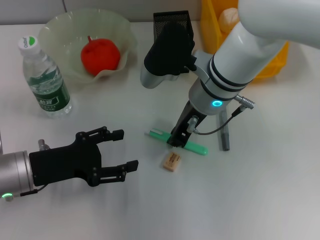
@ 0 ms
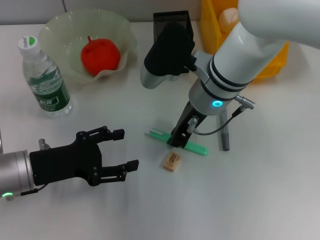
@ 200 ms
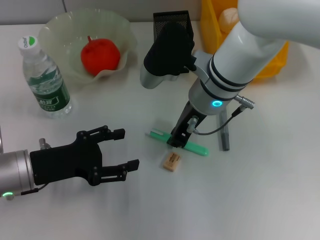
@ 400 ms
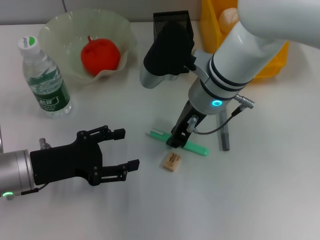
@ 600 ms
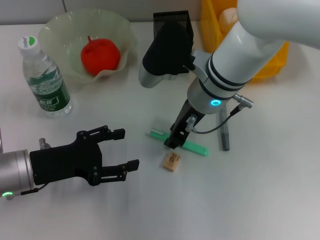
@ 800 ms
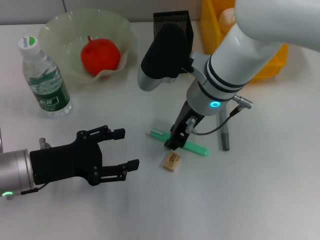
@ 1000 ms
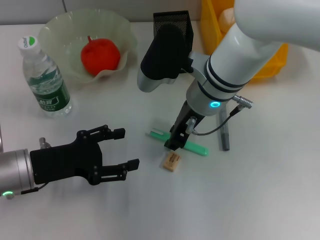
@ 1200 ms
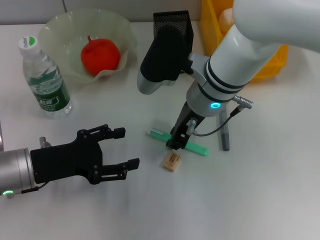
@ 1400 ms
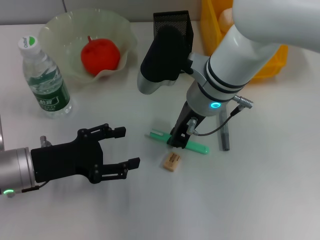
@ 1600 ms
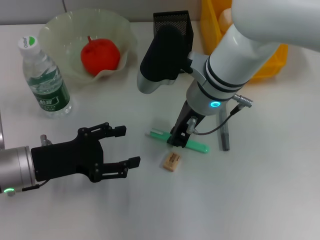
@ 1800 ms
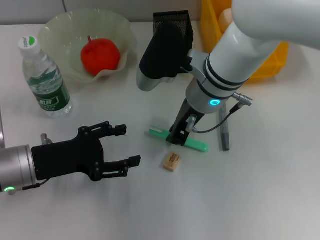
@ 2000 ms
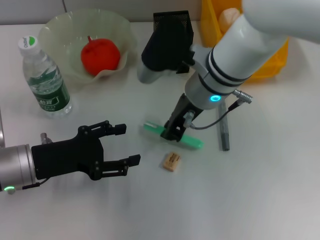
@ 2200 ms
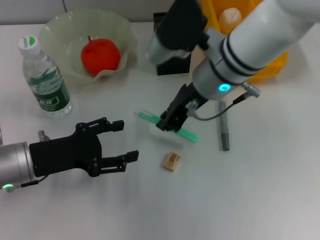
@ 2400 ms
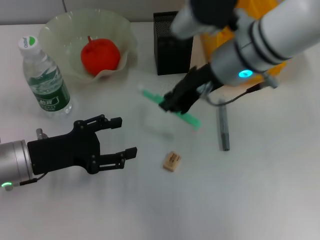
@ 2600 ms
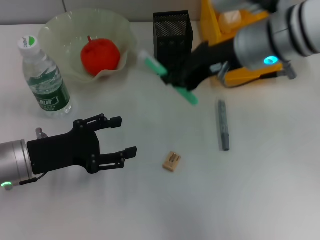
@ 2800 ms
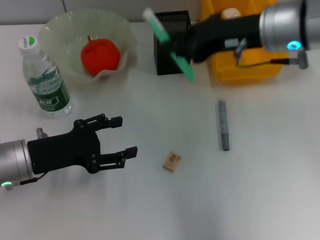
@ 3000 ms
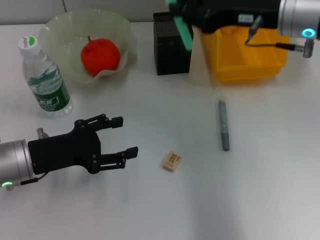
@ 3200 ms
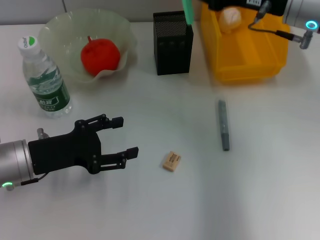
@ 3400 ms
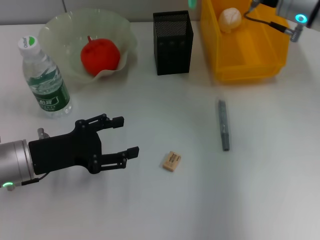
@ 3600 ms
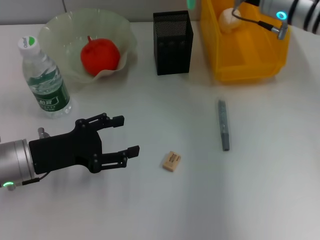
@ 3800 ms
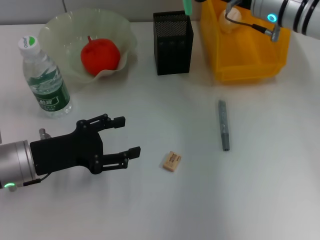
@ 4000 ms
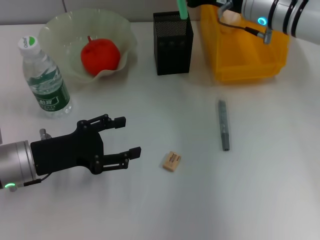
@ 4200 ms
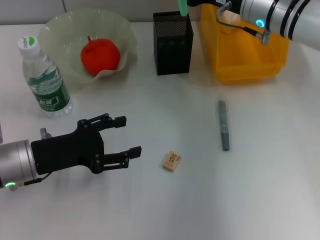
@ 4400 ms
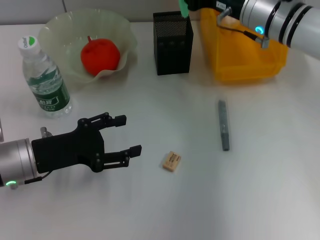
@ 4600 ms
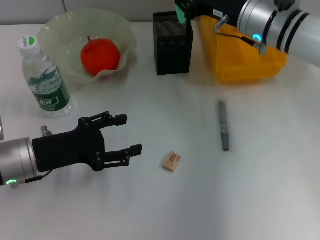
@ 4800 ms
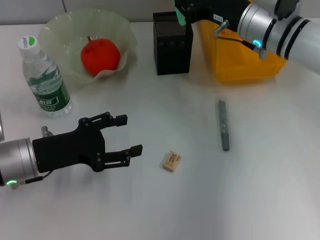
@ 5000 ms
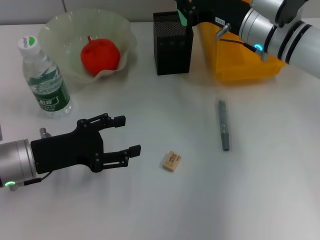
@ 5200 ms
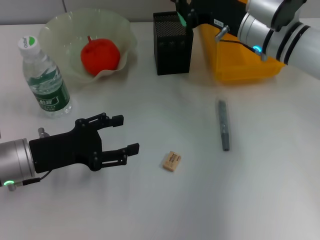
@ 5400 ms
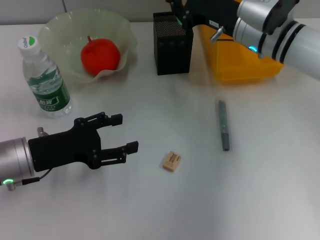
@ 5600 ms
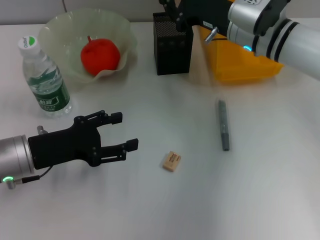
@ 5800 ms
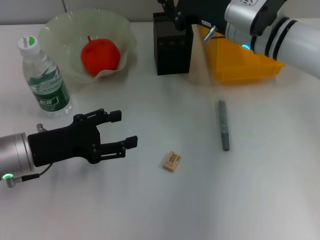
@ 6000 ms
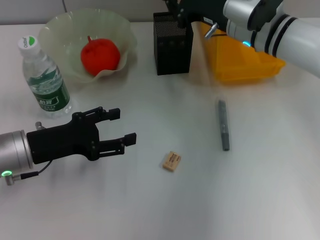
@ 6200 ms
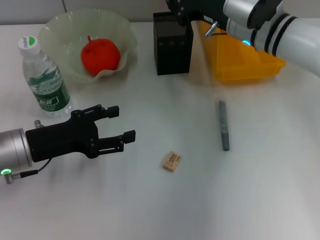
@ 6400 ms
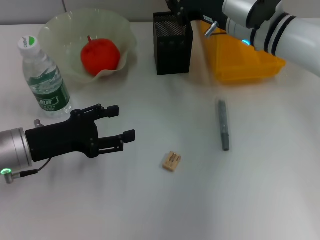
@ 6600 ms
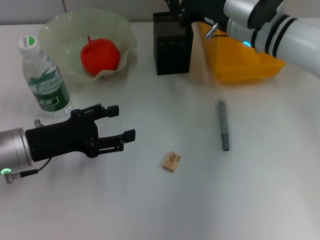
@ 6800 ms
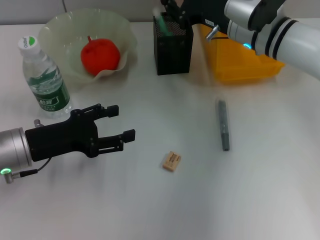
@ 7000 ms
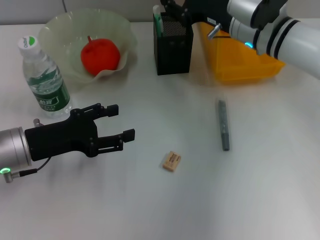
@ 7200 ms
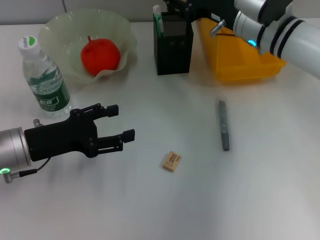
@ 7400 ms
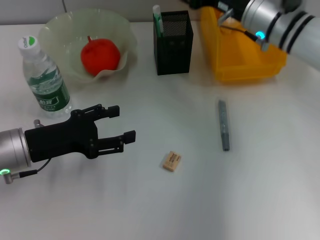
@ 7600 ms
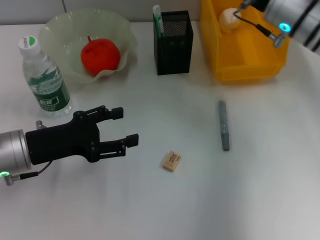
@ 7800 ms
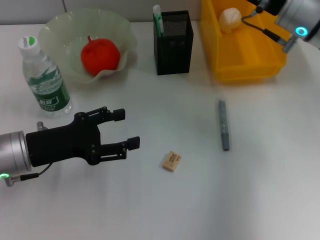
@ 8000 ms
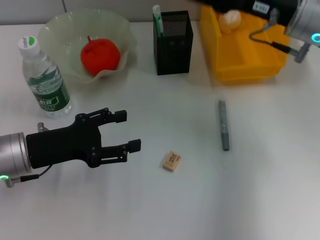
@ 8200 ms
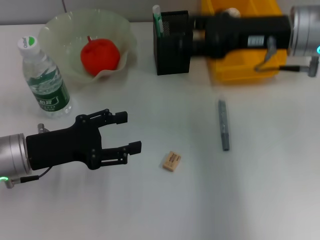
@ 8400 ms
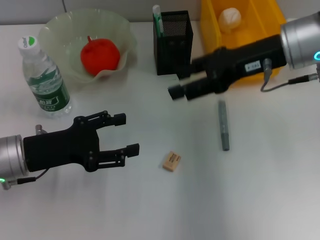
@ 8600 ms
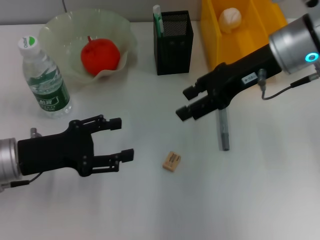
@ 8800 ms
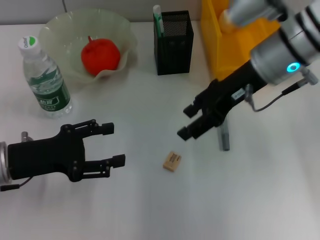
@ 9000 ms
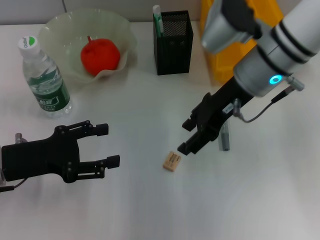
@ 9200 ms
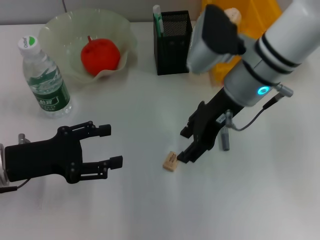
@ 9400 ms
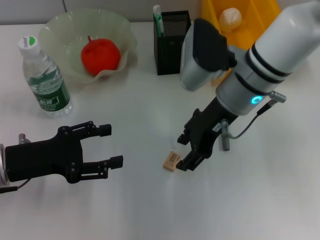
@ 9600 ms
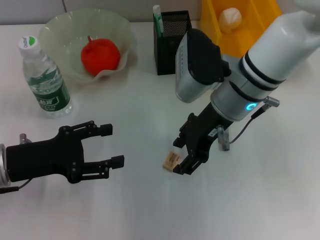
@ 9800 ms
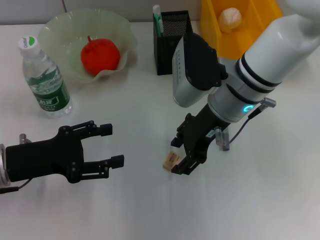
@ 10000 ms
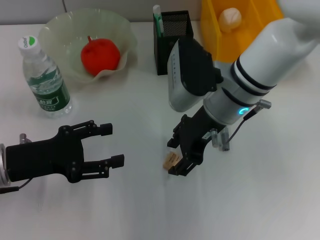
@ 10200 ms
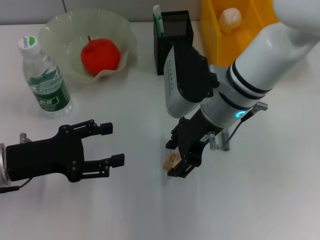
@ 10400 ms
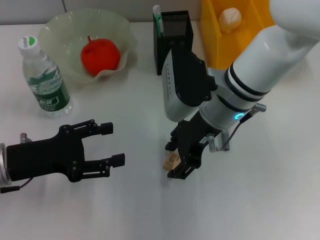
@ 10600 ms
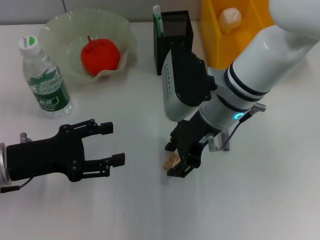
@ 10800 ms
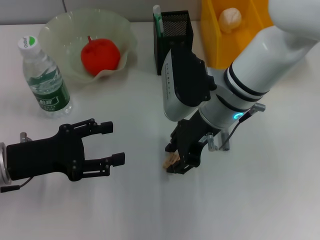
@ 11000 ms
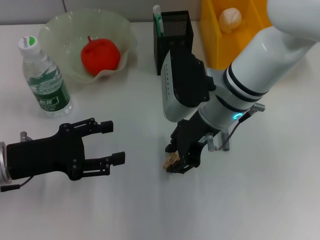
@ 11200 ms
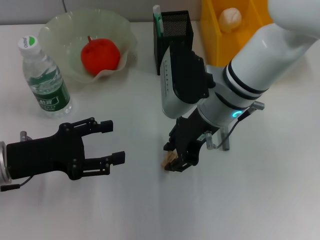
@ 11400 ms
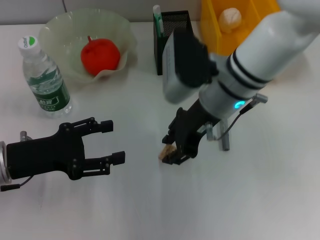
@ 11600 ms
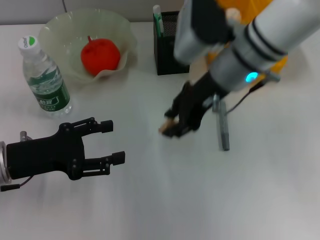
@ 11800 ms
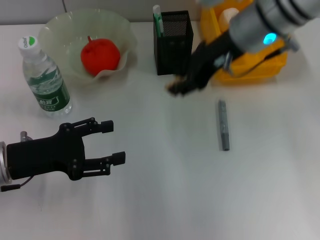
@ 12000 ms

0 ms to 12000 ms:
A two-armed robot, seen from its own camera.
Step, 1800 ms to 7200 ms: Place the blue utility knife into the pen holder with the right hand.
Step, 7600 ms to 11200 ms: Grab the eraser with the right hand.
0 ms to 1600 ms: The two grippers keep their place.
1600 ms to 3000 ms: The right gripper shifts approximately 15 cm to the right and upward.
3000 ms to 4400 ms: The right gripper goes some 10 cm forward and downward.
6000 ms to 7600 ms: The right gripper opens up.
7600 ms to 9000 ms: The right gripper is displaced backward by some 5 cm.
9000 ms to 10400 ms: The right gripper heads to the left and downward, covering approximately 10 cm.
10400 ms to 12000 ms: The right gripper heads upward, covering roughly 10 cm.

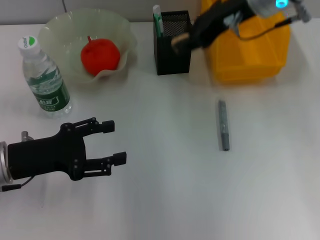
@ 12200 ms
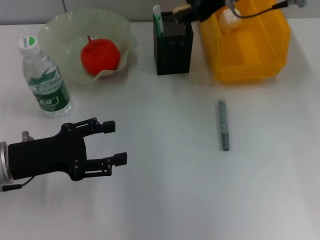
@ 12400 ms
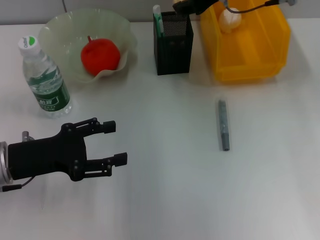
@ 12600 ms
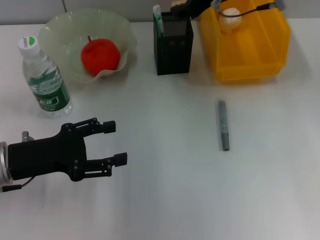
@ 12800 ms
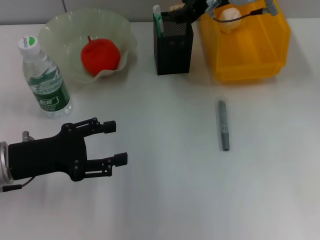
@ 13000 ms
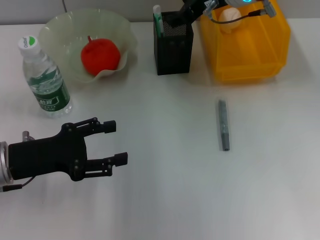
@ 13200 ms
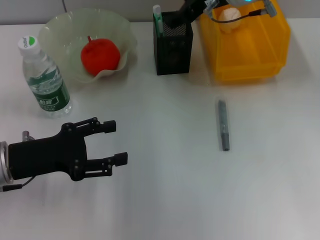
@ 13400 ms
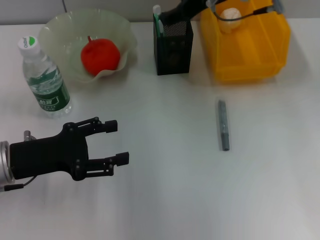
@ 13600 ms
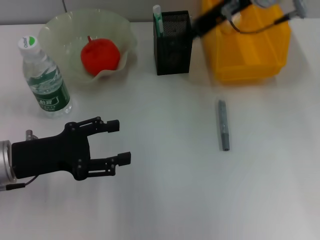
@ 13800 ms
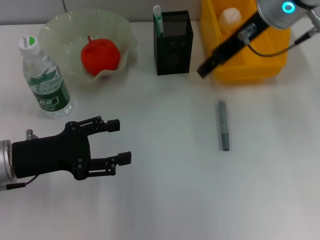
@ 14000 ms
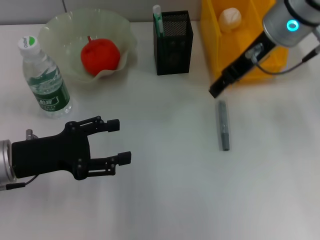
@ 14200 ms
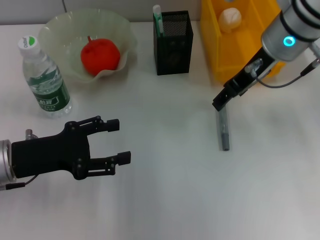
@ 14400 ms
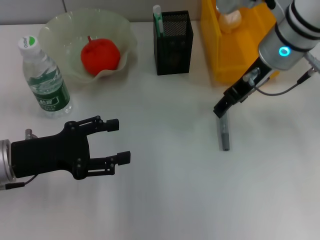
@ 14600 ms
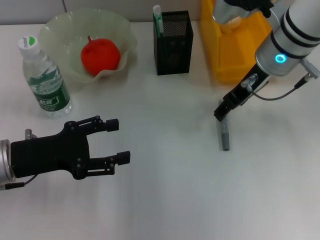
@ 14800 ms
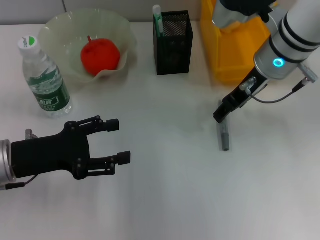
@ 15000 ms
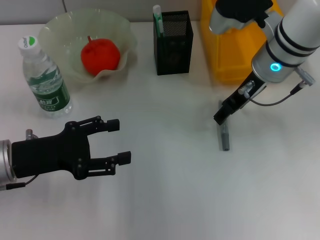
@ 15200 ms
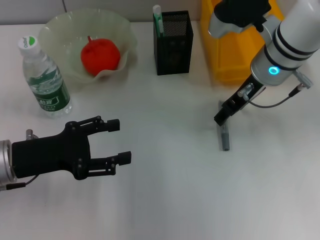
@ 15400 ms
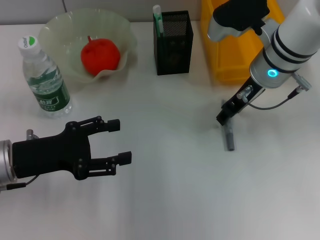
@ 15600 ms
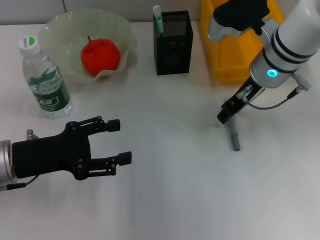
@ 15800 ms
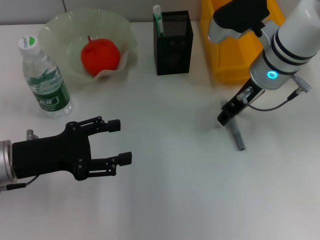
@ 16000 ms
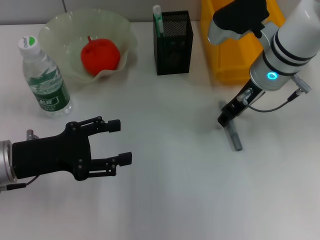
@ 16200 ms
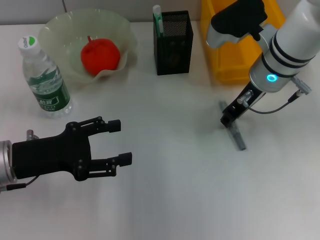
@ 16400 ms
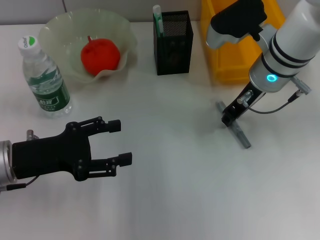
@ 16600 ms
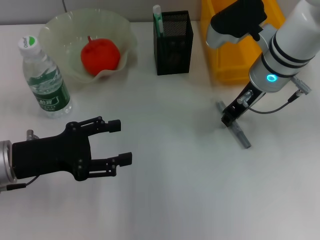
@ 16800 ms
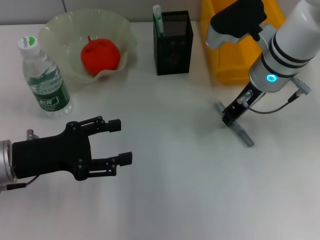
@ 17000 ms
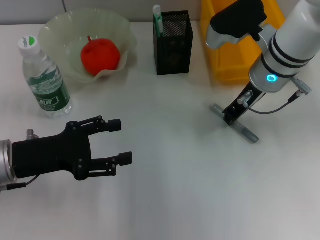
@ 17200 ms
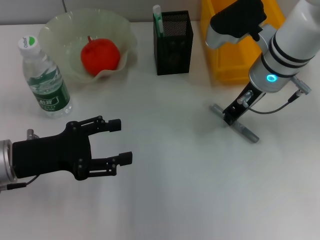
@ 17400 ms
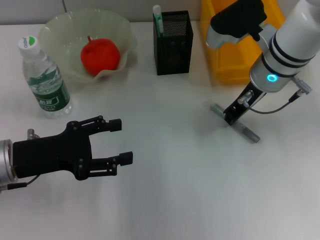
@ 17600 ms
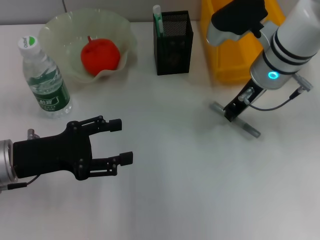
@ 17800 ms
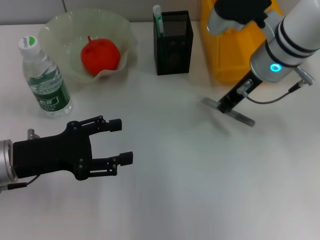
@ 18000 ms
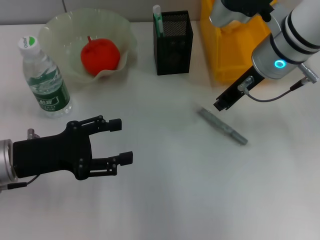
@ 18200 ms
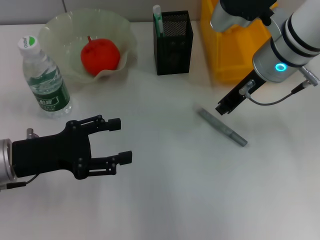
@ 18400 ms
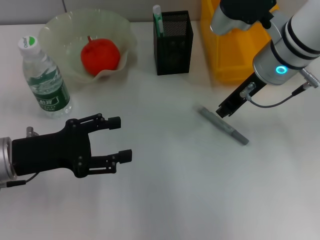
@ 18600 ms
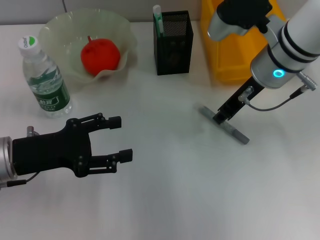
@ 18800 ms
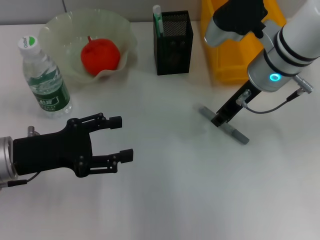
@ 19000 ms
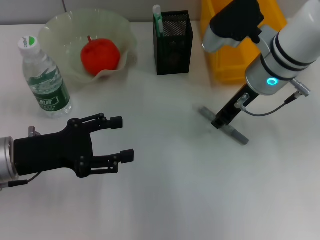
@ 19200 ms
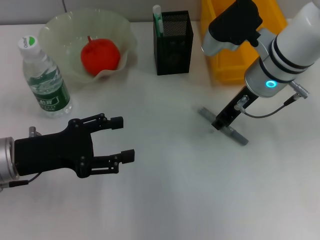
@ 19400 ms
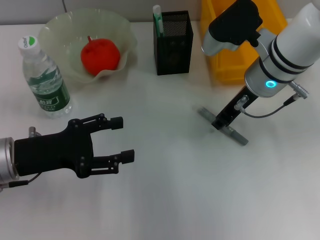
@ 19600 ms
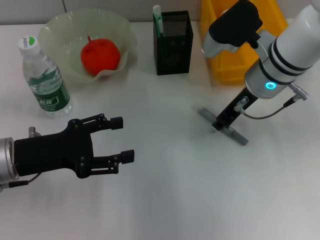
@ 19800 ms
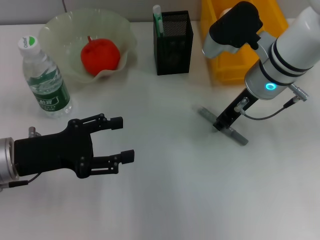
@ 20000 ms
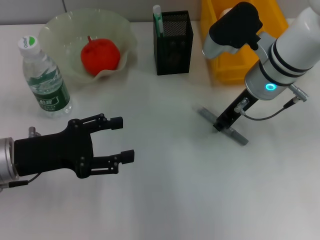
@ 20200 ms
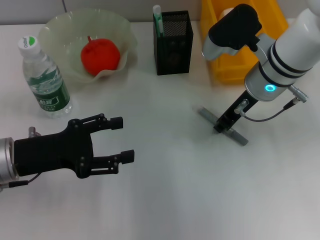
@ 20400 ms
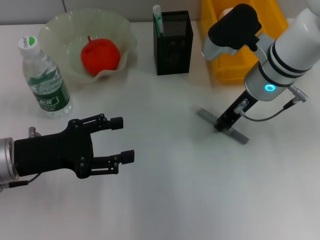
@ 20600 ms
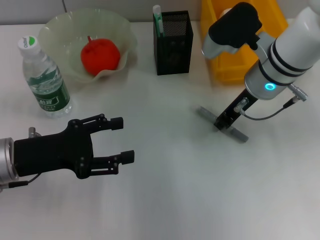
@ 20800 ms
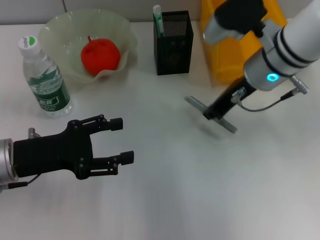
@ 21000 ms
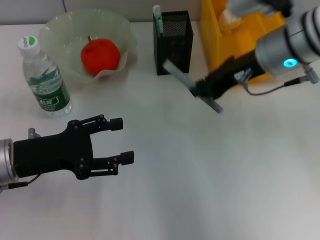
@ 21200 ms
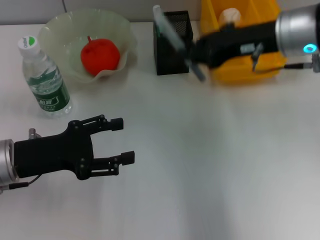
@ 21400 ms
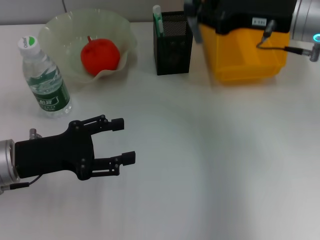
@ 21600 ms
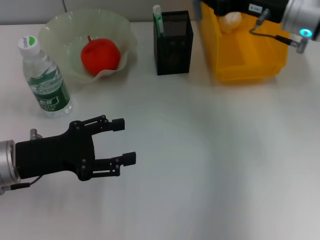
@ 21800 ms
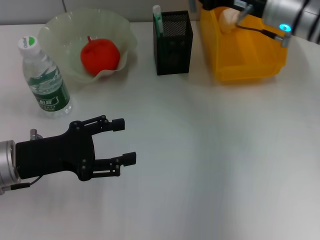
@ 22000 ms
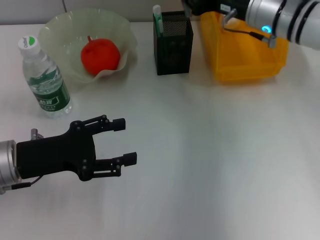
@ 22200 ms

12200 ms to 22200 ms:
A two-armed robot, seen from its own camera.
Step, 12200 ms to 13200 ms: Put the eraser into the pen holder with the right hand.
Step, 13400 ms to 20400 ms: Grab the gray glue with the right hand.
12200 ms to 13600 ms: There are only small adjustments of the grippers.
13600 ms to 15000 ms: The right gripper moves downward, roughly 5 cm.
15000 ms to 16400 ms: The right gripper closes its fingers.
16400 ms to 18000 ms: The right gripper closes up.
18000 ms to 19400 ms: The grippers move only a little.
19400 ms to 20800 ms: Both grippers stay about where they are.
20800 ms to 22200 ms: The right gripper moves forward, roughly 5 cm.
